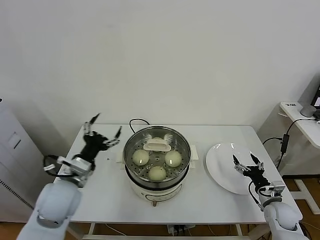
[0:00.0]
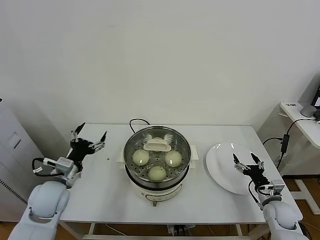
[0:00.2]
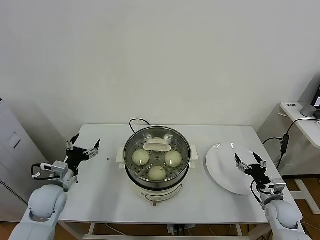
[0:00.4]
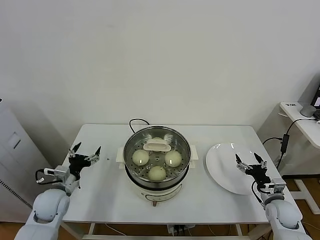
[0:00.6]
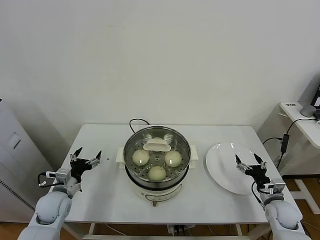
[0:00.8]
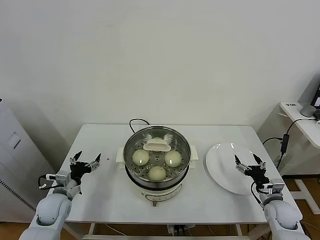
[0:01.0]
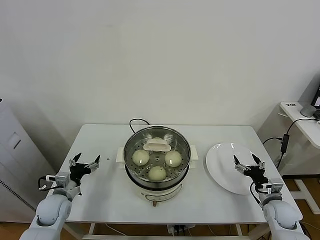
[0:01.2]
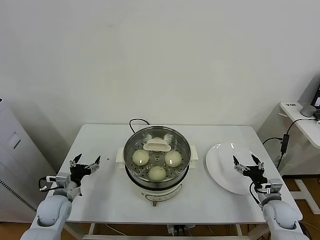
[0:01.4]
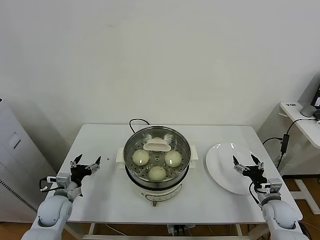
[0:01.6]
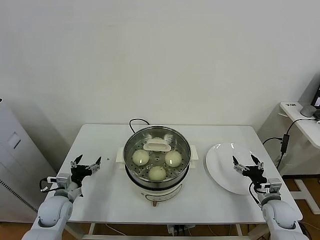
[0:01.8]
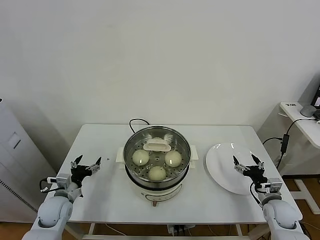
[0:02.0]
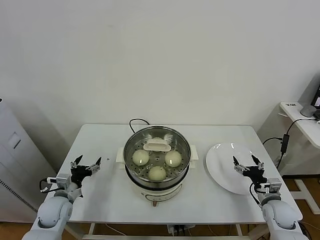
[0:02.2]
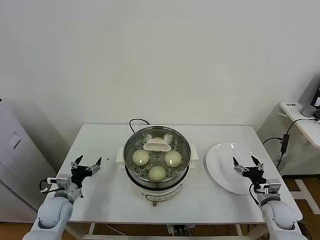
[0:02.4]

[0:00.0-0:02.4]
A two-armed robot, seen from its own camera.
Task of the whole recording: take steamed baozi put them in steamer.
0:00.0 to 0:01.2: The left gripper moves downward and to the left, roughly 20 cm.
0:01.2 to 0:02.4: The two grippers keep their place.

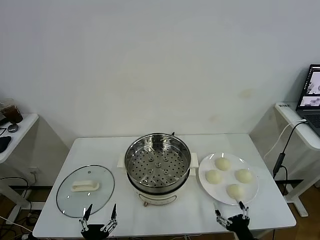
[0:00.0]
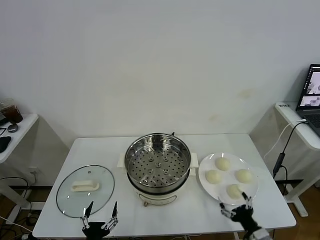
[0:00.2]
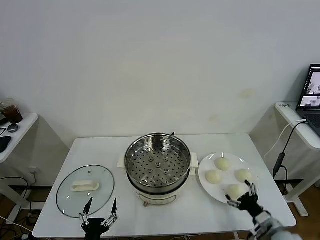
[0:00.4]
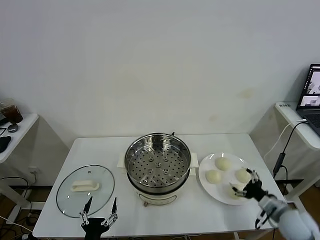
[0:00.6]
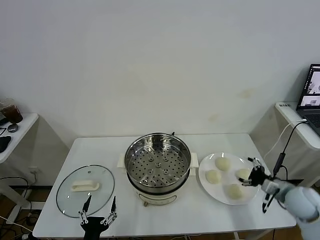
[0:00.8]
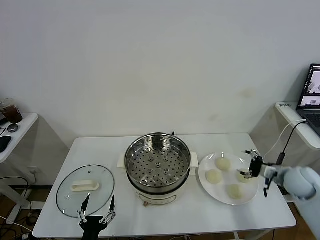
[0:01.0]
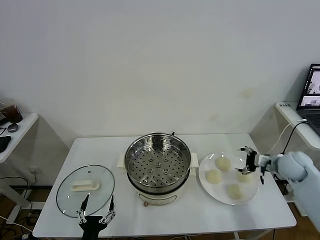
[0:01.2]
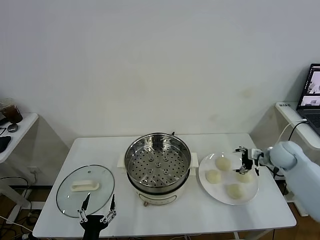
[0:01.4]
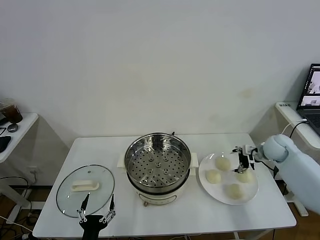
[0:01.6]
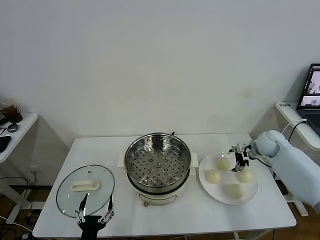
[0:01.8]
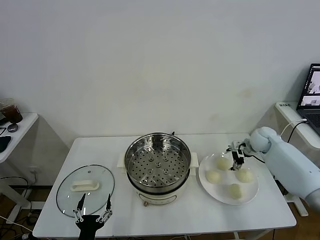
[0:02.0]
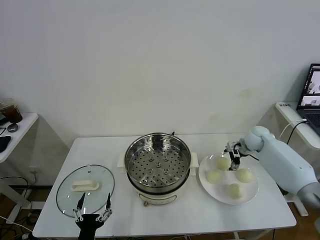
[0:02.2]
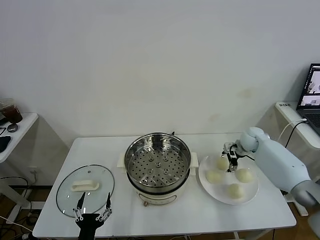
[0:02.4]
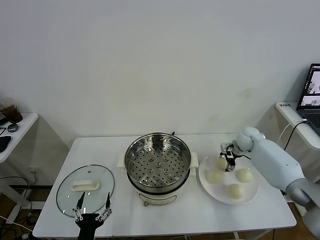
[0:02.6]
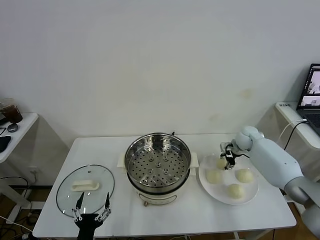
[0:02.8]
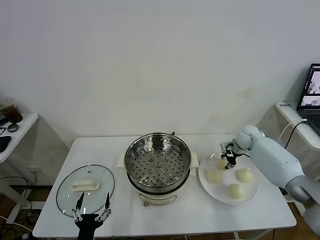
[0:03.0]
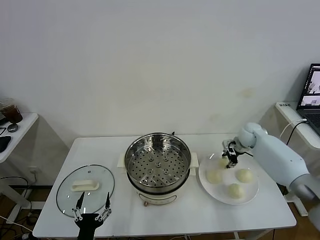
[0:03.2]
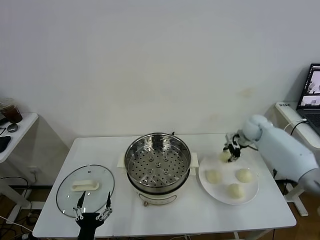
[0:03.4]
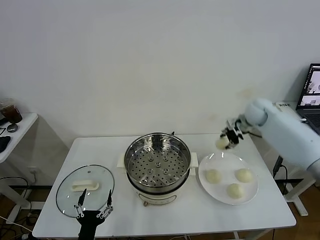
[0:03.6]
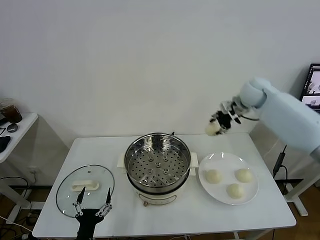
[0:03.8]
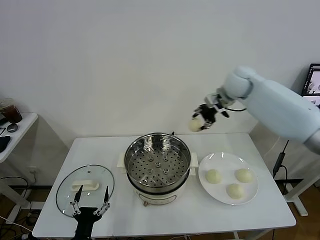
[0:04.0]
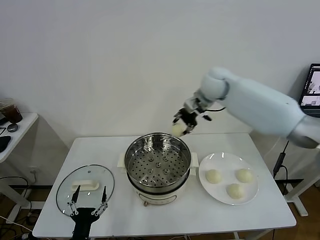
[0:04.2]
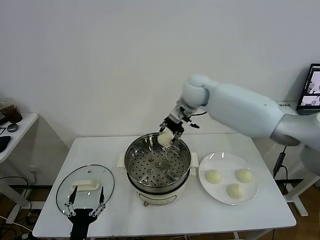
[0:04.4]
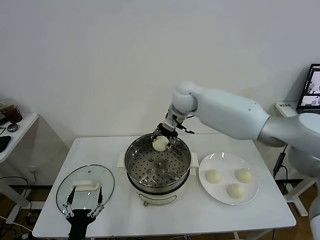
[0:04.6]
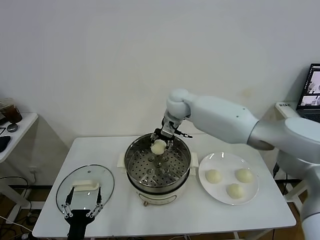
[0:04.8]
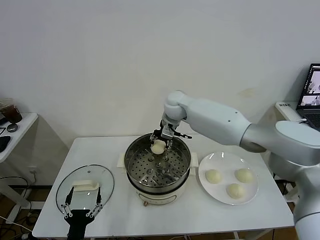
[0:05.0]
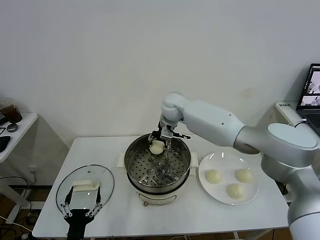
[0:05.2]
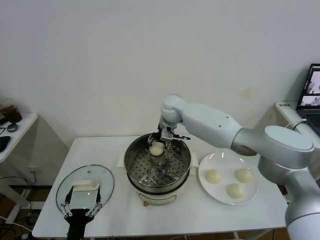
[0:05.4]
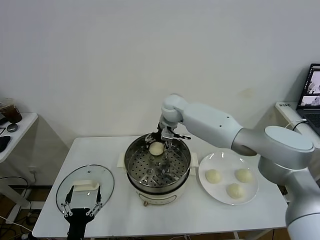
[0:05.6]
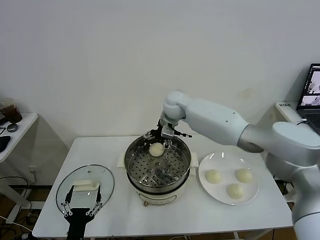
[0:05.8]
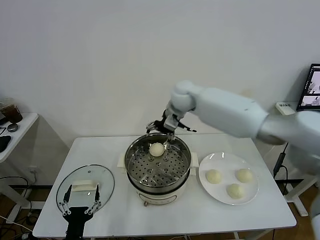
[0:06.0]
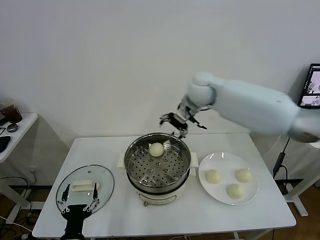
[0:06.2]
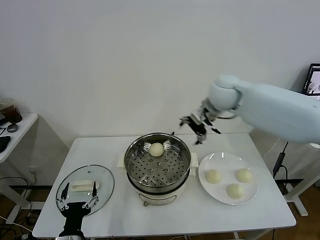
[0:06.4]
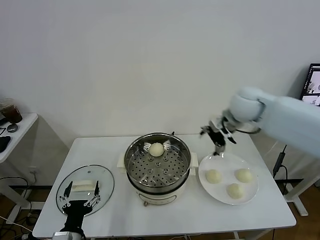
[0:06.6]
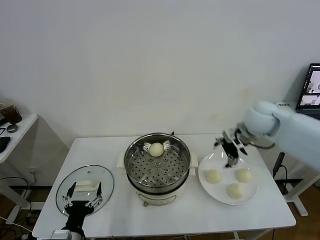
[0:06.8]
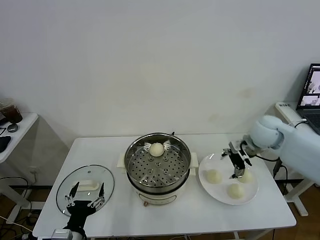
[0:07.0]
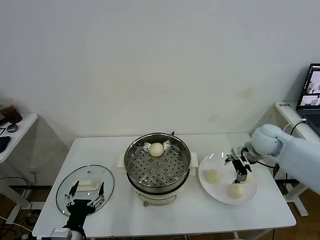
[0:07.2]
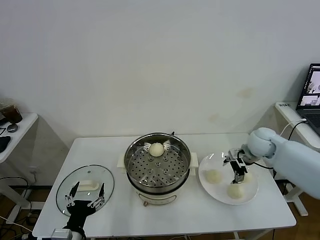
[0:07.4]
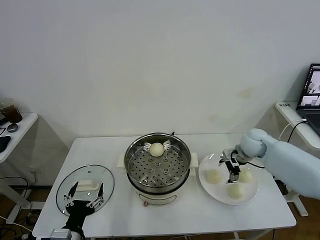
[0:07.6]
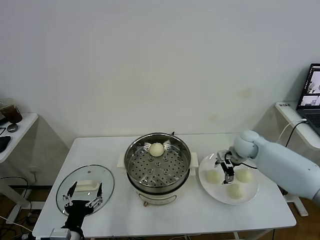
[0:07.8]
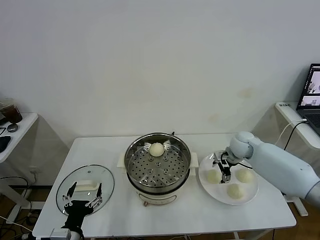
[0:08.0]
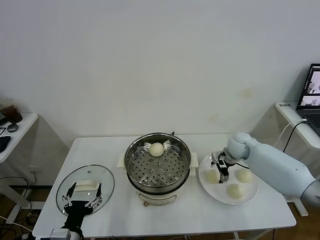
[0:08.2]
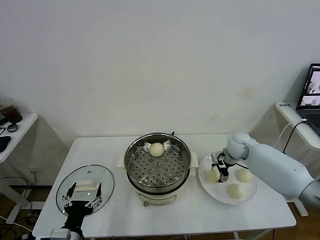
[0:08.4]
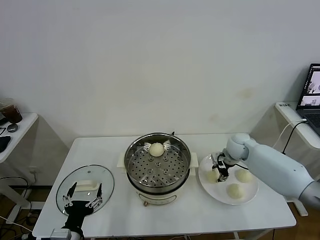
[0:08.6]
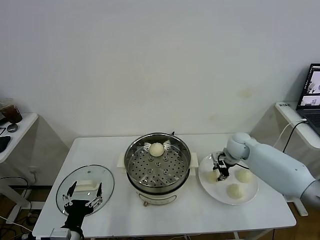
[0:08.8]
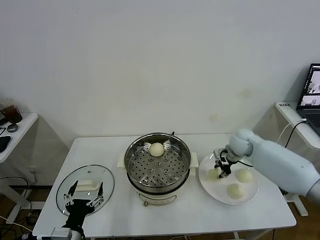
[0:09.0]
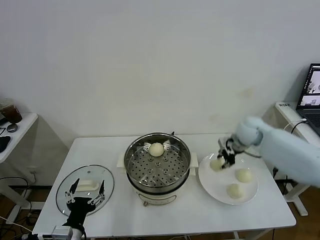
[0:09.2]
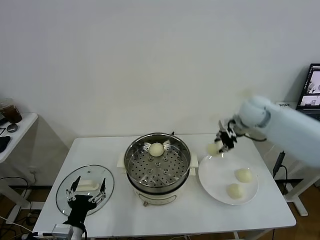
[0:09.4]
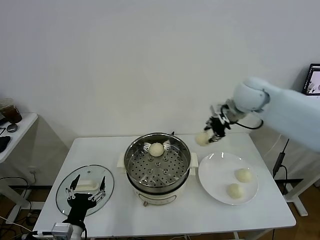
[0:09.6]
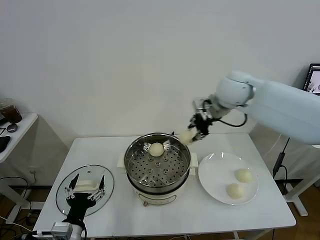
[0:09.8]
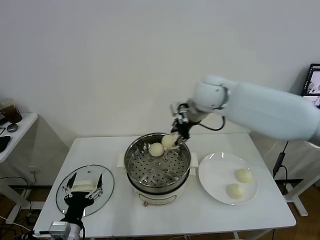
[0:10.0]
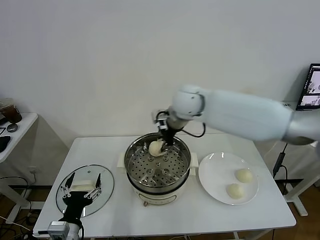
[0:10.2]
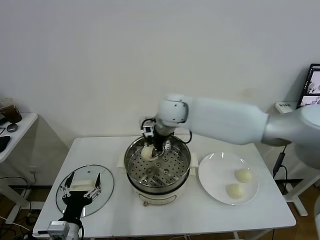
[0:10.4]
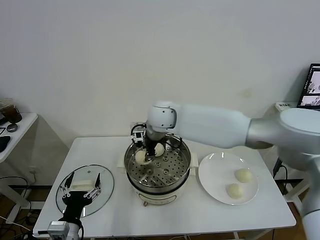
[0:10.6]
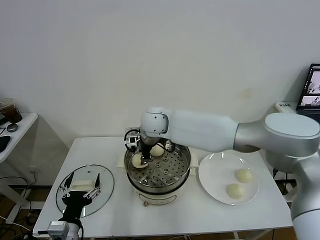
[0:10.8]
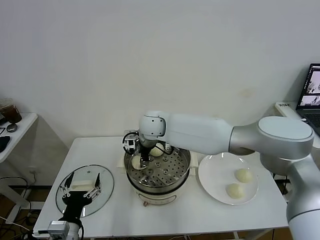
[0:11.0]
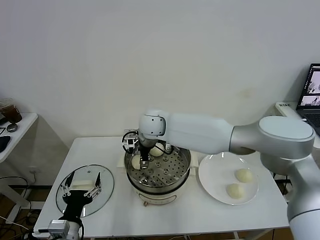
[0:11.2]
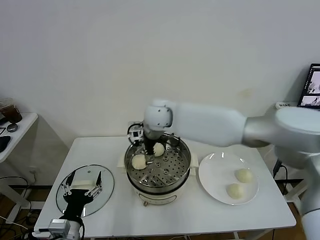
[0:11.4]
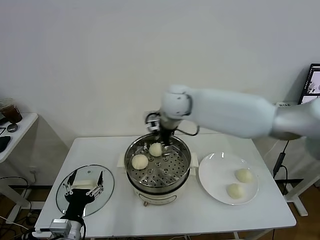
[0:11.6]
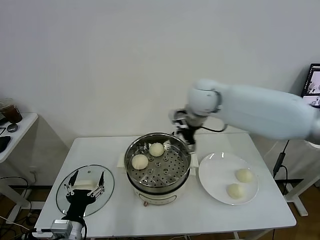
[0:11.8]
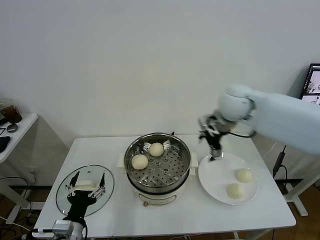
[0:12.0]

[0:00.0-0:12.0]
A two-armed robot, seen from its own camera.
Task of the whole recording: take steamed baozi put them in steamer.
Step, 0:00.0 to 0:02.8: Grasp the baozi in the plate with right gripper.
Step, 0:03.0 to 0:05.8: Place the baozi on the steamer with right gripper.
Step, 0:06.0 to 0:08.8: Grasp the baozi in the plate with right gripper.
Step, 0:09.0 to 0:11.4: Place the baozi on the steamer with right gripper.
0:01.6 to 0:03.0: The right gripper is displaced forward and to the left by some 10 cm, and closes.
0:03.0 to 0:04.4: The right gripper shifts roughly 35 cm to the left and upward.
0:04.4 to 0:06.0: The right gripper moves about 5 cm downward and comes back, and opens up.
0:06.0 to 0:07.6: The right gripper goes about 30 cm to the right and downward, while the left gripper is displaced upward by roughly 5 cm.
0:07.6 to 0:09.0: The right gripper closes up.
0:09.0 to 0:10.4: The right gripper shifts roughly 30 cm to the left and upward.
0:10.4 to 0:12.0: The right gripper moves to the right, some 25 cm, and opens.

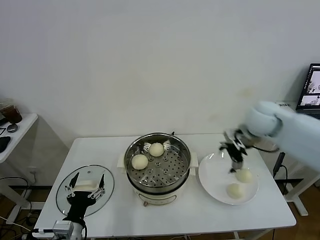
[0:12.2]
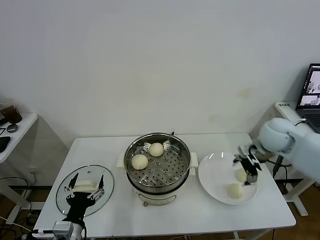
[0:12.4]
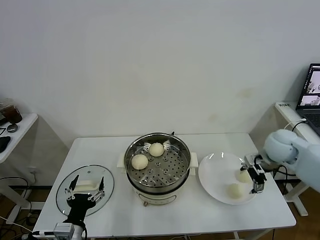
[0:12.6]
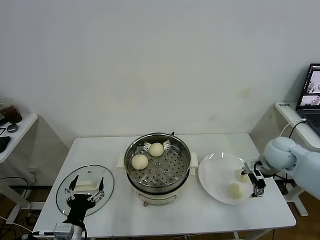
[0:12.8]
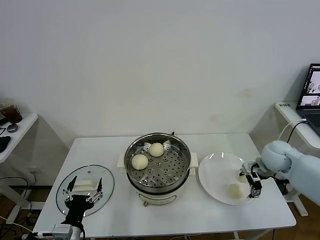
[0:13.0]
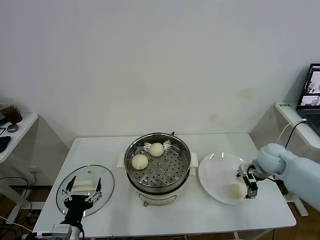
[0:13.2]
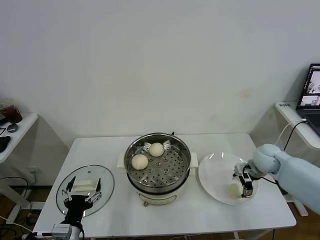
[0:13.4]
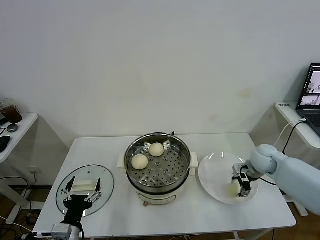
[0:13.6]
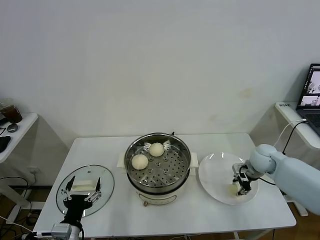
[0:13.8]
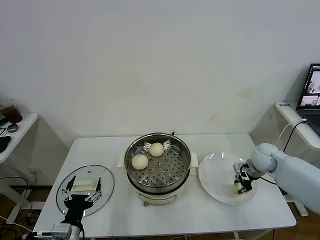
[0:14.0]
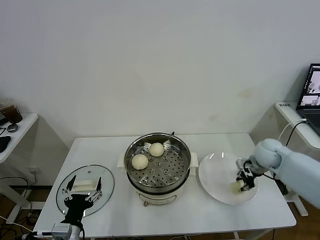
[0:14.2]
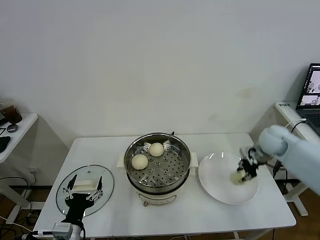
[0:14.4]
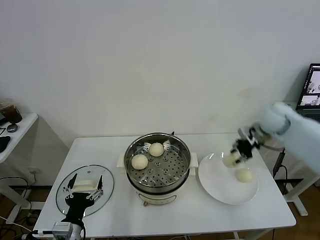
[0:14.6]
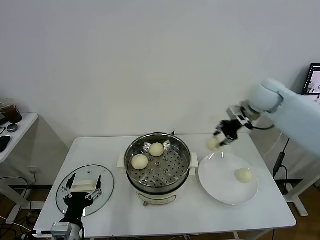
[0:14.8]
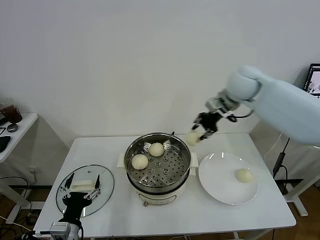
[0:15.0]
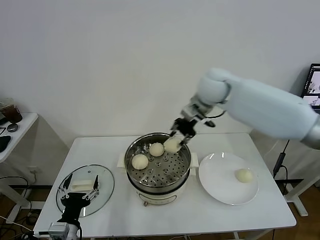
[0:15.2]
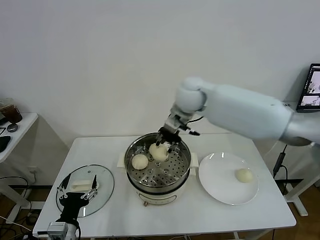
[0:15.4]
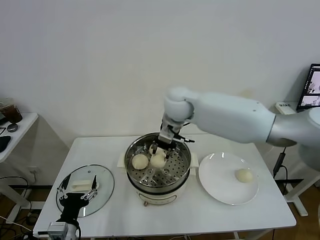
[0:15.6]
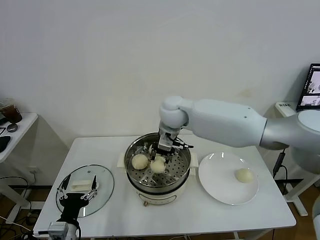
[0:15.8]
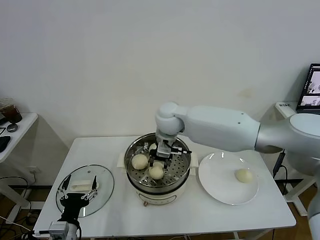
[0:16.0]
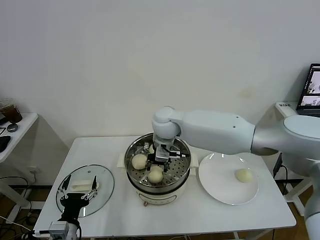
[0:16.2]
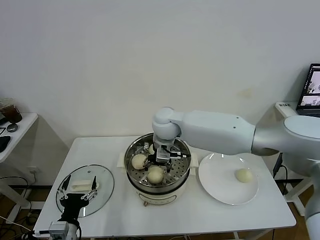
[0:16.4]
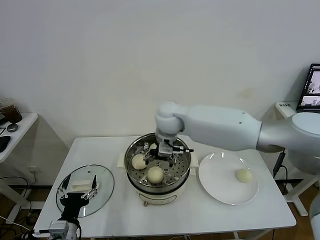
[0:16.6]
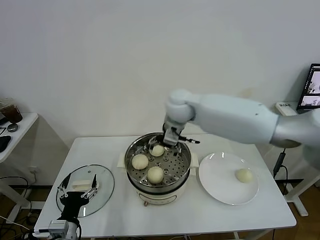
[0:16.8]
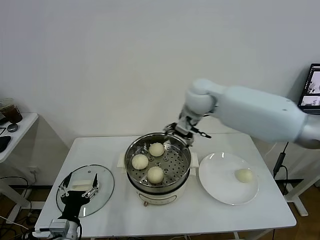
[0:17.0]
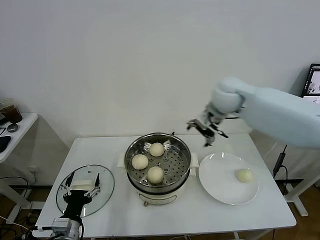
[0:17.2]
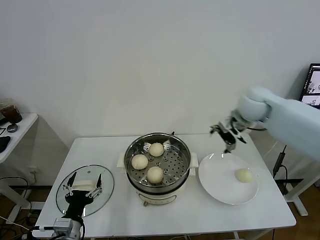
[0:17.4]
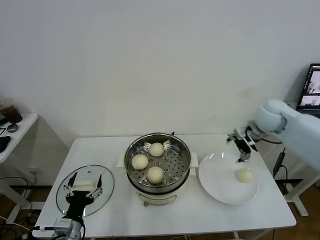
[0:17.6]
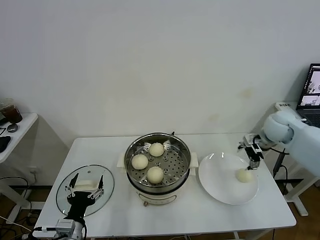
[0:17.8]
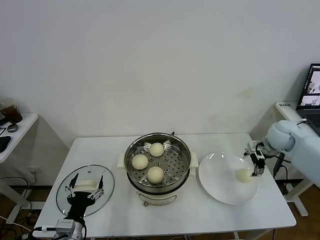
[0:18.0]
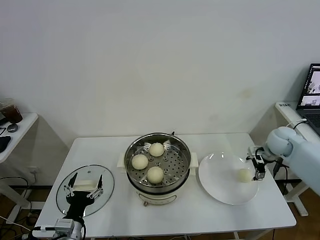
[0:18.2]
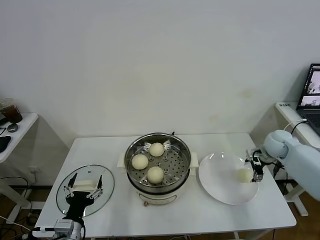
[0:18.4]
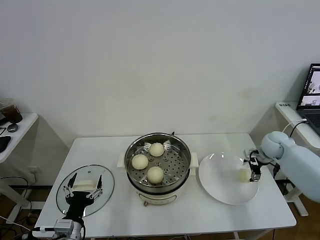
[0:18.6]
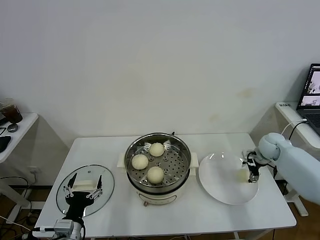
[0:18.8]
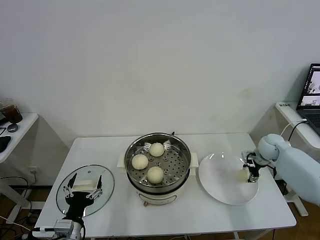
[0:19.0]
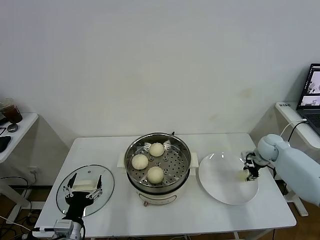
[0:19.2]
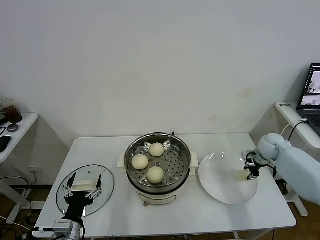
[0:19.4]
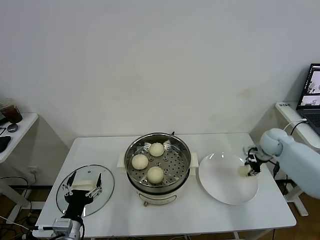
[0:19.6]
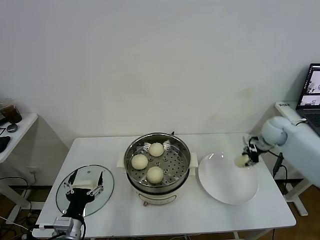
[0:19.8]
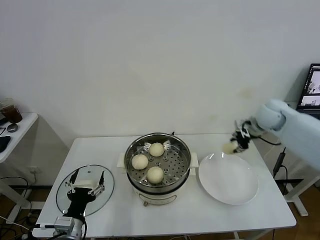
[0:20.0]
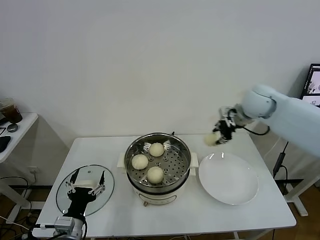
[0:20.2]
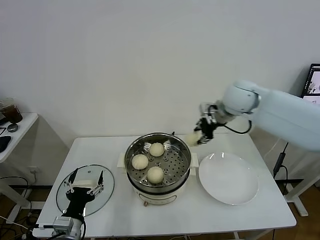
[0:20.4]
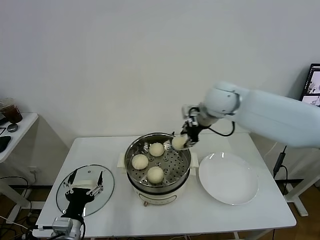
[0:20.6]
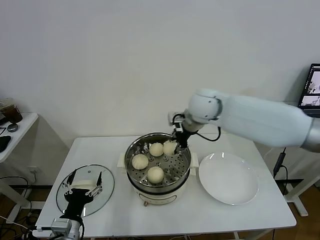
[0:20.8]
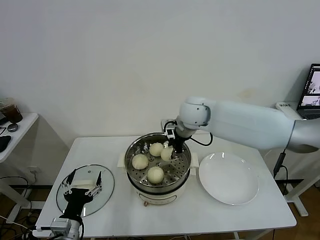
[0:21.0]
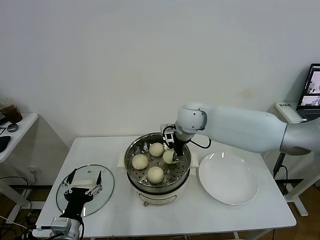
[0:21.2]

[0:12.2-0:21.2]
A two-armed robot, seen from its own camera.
Task of the whole recording: take steamed baozi put them in steamer.
Step, 0:12.2 to 0:14.0: Grasp the baozi in the plate with right gripper.
Step, 0:14.2 to 0:16.6: Place the baozi on the steamer with right gripper.
Step, 0:16.8 to 0:19.2: Grasp the baozi in the plate with right gripper.
0:12.2 to 0:13.8: The right gripper heads downward, covering approximately 15 cm, and closes.
0:13.8 to 0:15.2: The right gripper moves to the left and upward, some 35 cm.
0:15.2 to 0:16.6: The right gripper shifts about 10 cm to the left and downward, and opens up.
0:16.6 to 0:18.2: The right gripper goes roughly 40 cm to the right.
0:18.2 to 0:19.8: The right gripper ends up approximately 5 cm from where it was, and closes up.
0:19.8 to 0:21.2: The right gripper is displaced to the left by some 30 cm.
